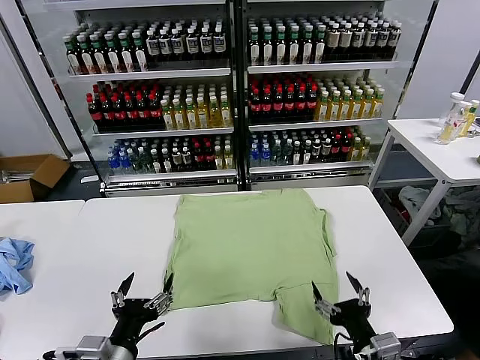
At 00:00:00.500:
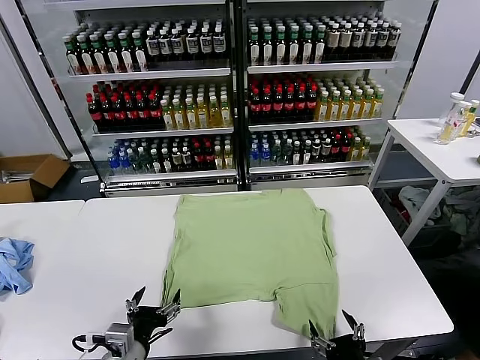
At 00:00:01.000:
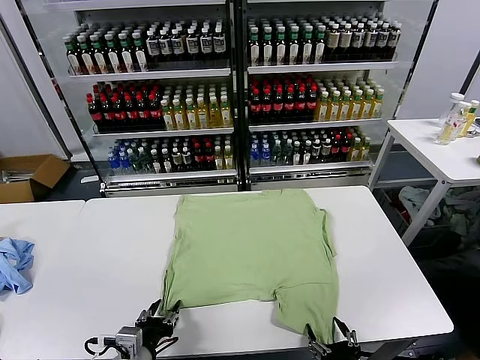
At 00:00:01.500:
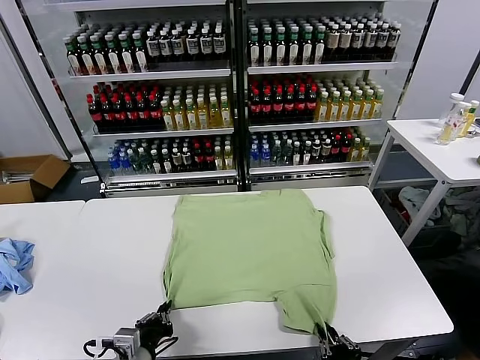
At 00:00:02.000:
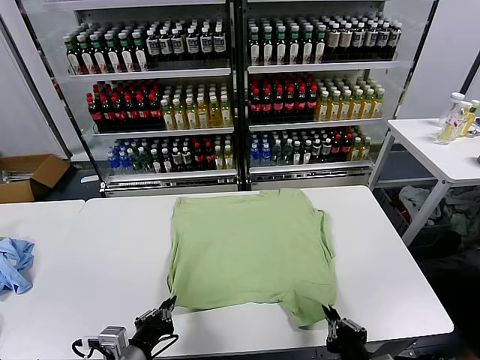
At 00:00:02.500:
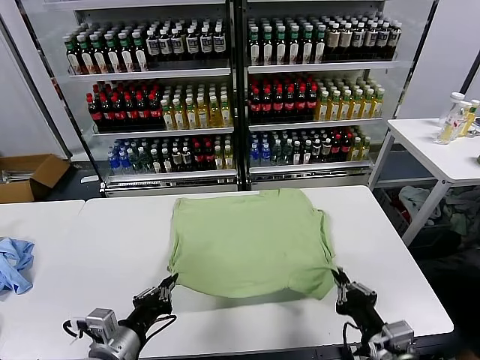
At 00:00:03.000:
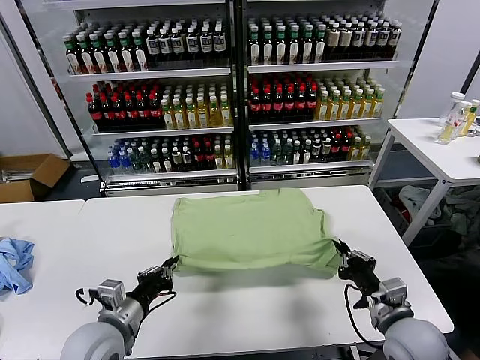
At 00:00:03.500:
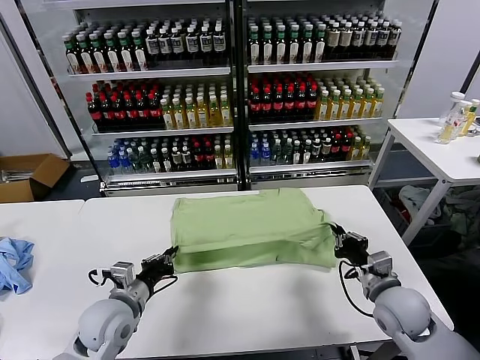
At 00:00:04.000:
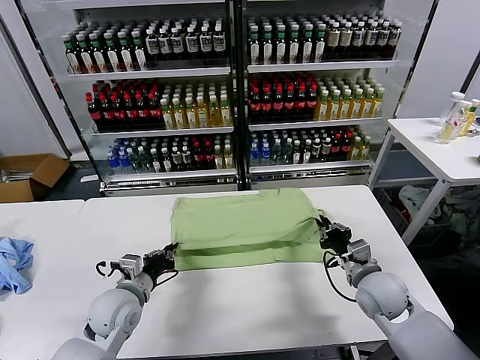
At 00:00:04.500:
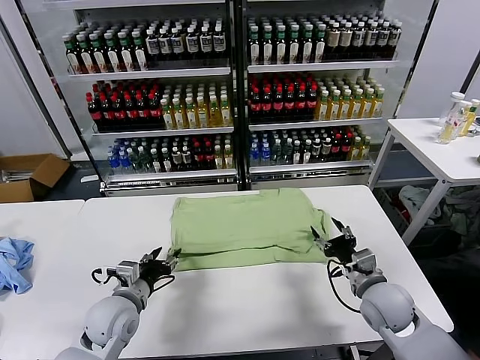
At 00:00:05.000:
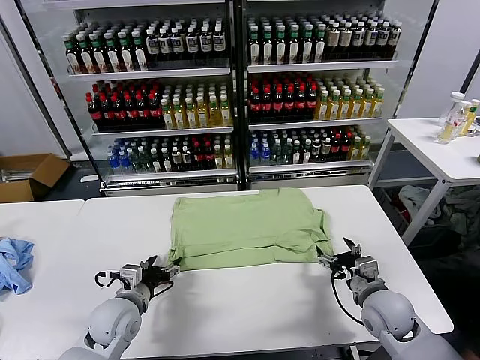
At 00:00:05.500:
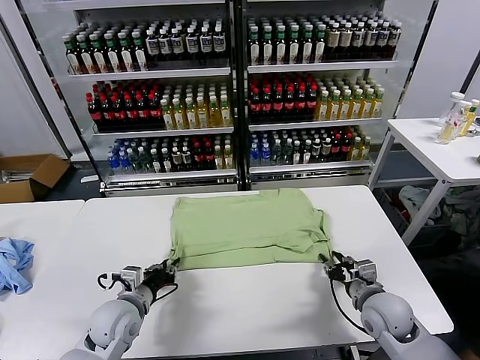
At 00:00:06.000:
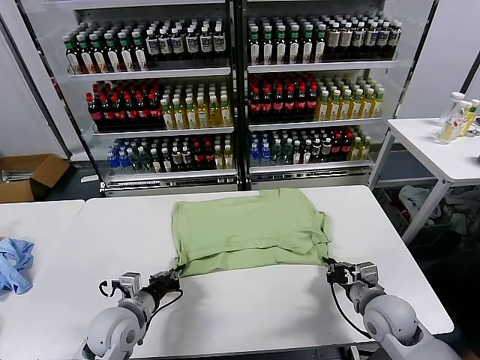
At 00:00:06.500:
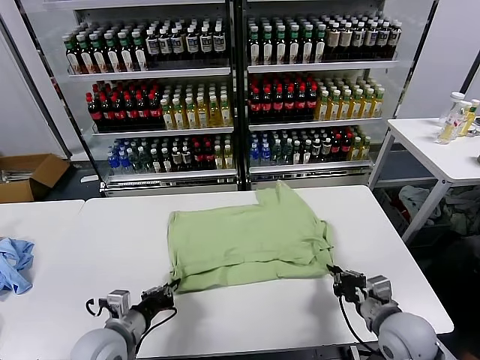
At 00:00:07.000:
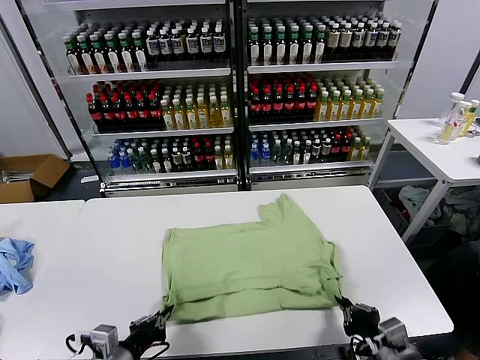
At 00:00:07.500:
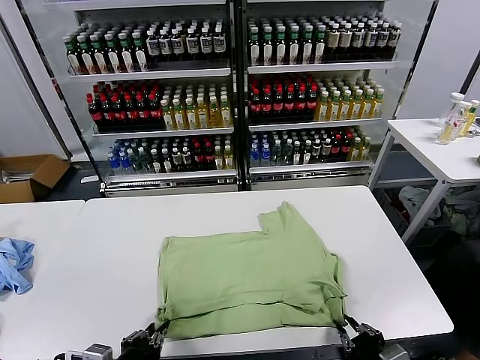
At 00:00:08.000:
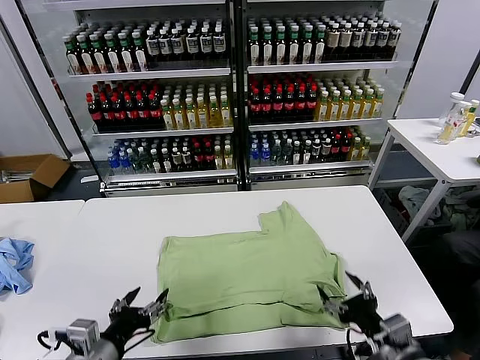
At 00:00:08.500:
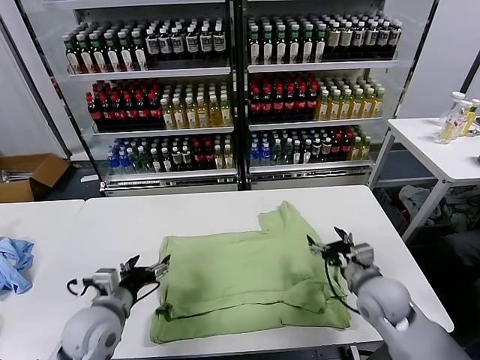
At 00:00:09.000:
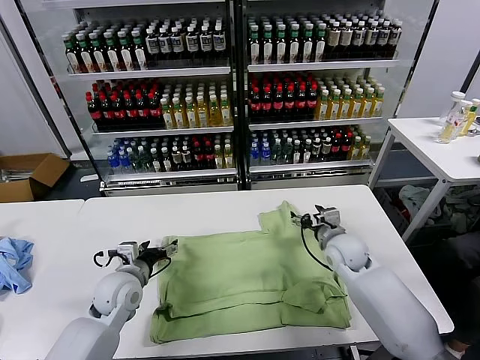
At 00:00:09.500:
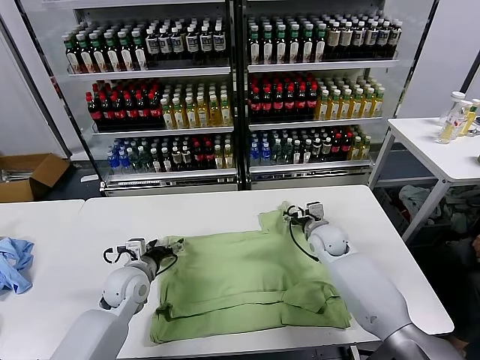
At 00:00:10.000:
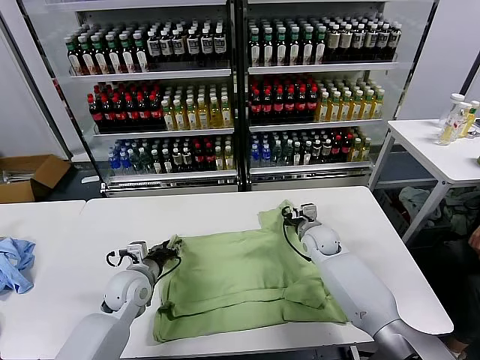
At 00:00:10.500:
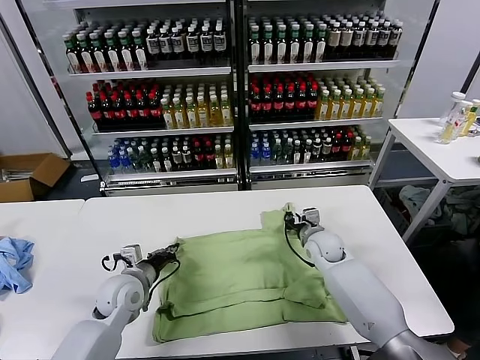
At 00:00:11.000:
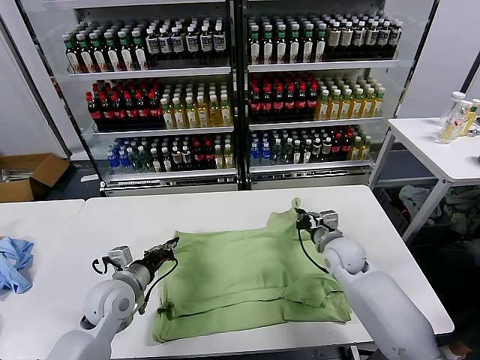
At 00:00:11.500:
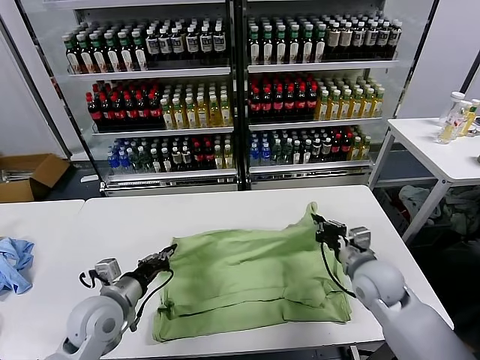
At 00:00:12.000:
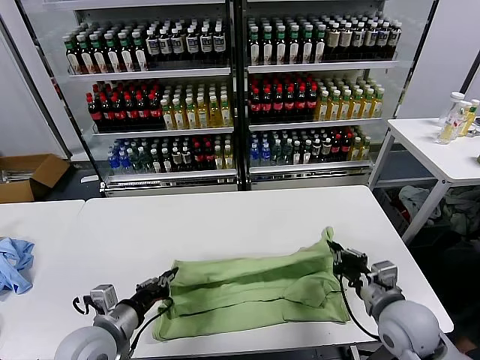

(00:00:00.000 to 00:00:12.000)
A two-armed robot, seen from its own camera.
Task of the whole recording: fold and organize the clothes.
Step, 00:00:00.000 - 00:00:01.500: use both grippers simultaneously to clamp the lower edge of the clothing fabric.
Step, 00:00:02.000 - 00:00:04.500: use both grippers to drag the lower edge of the fabric forward and fold it over the upper edge.
Step, 00:00:05.000 - 00:00:07.500: Drag the clothes downward with both gripper.
Step, 00:00:08.000 - 00:00:10.000: use both grippers simultaneously to clamp the upper edge of the clothing fabric.
00:00:02.000 - 00:00:04.000: Both grippers move forward, some 20 cm.
00:00:04.000 - 00:00:06.000: The right gripper ends up some 5 cm from where it was, and opens, then closes once more, while the left gripper opens and closes again.
00:00:06.000 - 00:00:08.000: Both grippers move backward and upward, about 15 cm. The right gripper opens its fingers. The left gripper opens its fingers.
00:00:08.000 - 00:00:10.000: The right gripper travels forward by some 35 cm, and closes; the left gripper heads forward and downward, covering some 25 cm, and closes its fingers.
00:00:10.000 - 00:00:12.000: The right gripper travels backward by about 25 cm, and closes; the left gripper shifts some 15 cm backward, and closes.

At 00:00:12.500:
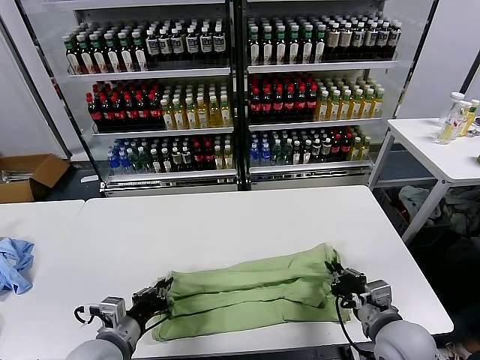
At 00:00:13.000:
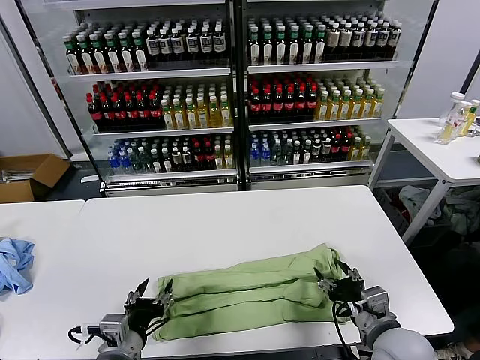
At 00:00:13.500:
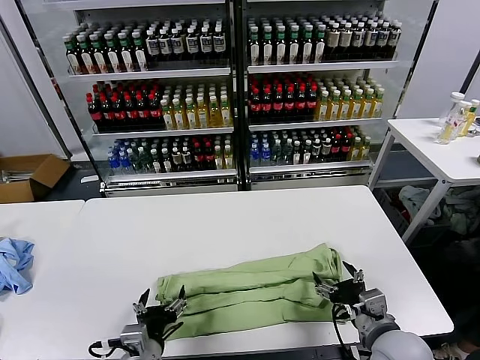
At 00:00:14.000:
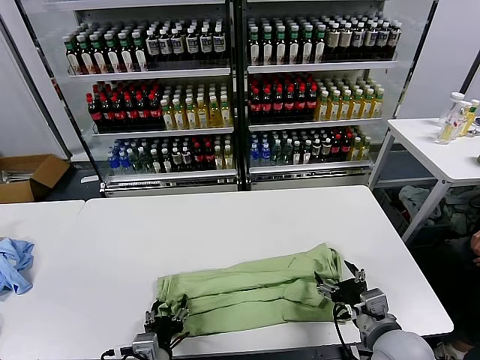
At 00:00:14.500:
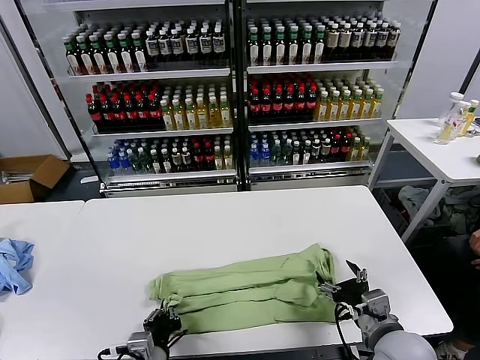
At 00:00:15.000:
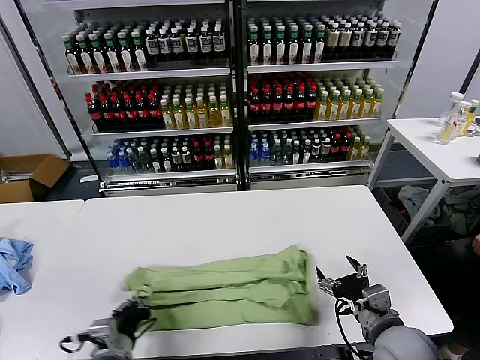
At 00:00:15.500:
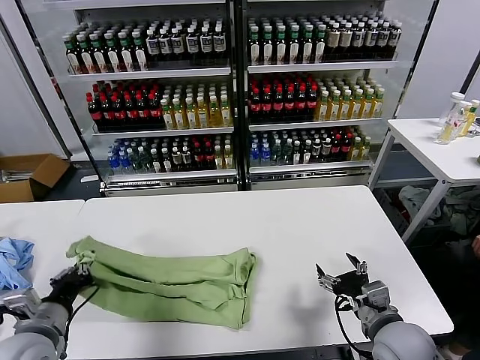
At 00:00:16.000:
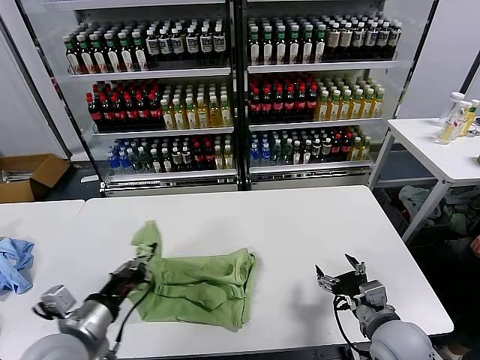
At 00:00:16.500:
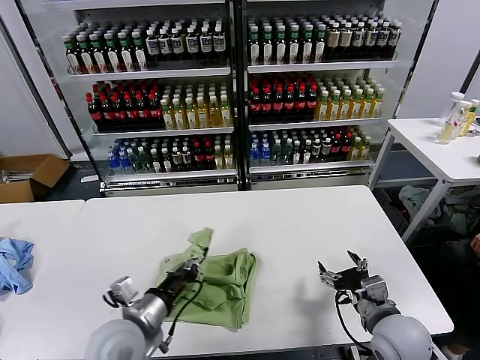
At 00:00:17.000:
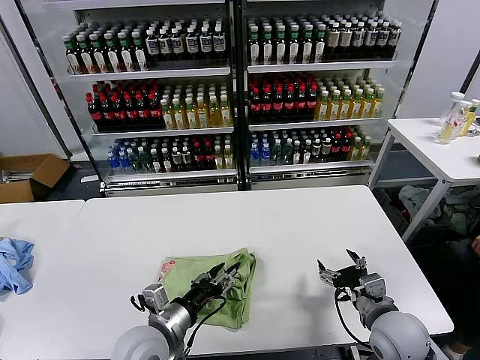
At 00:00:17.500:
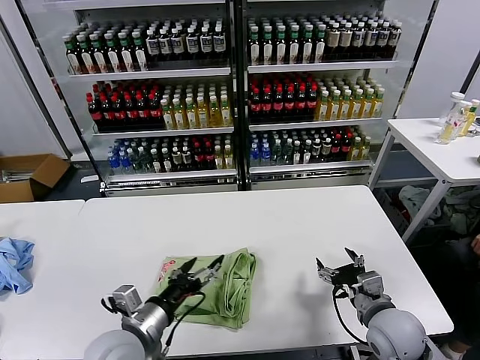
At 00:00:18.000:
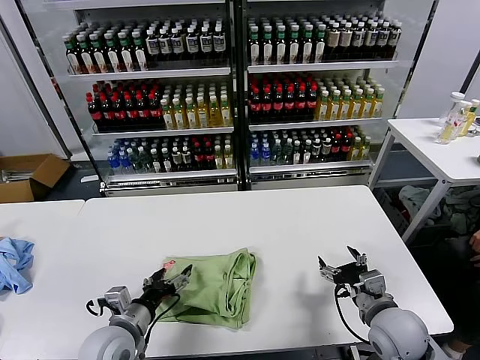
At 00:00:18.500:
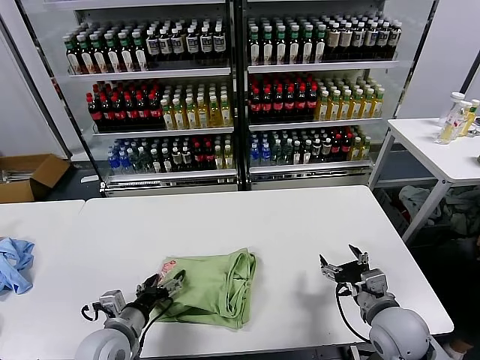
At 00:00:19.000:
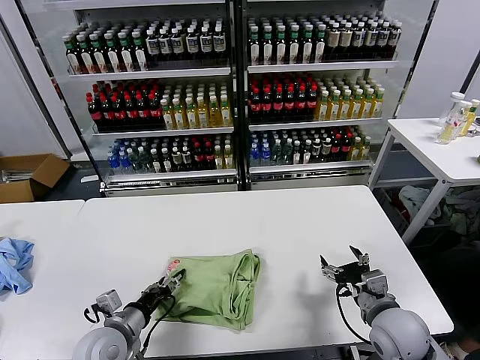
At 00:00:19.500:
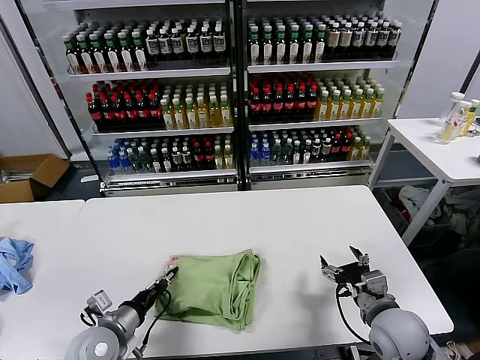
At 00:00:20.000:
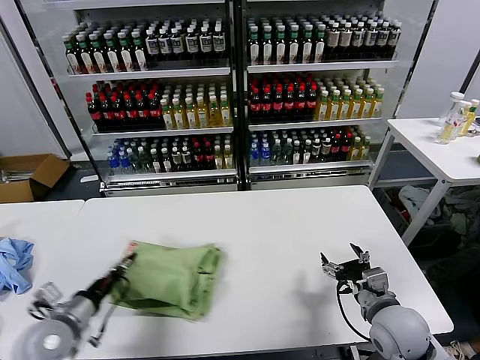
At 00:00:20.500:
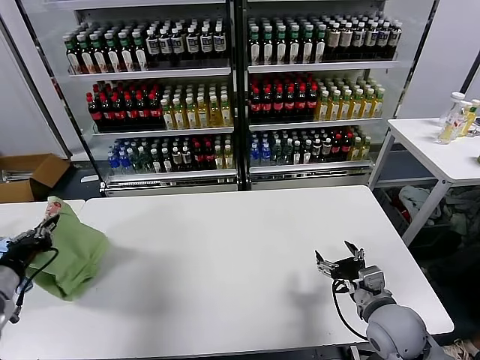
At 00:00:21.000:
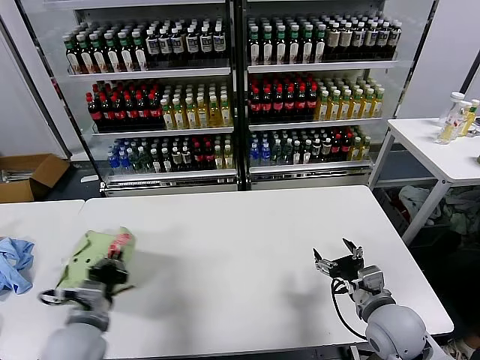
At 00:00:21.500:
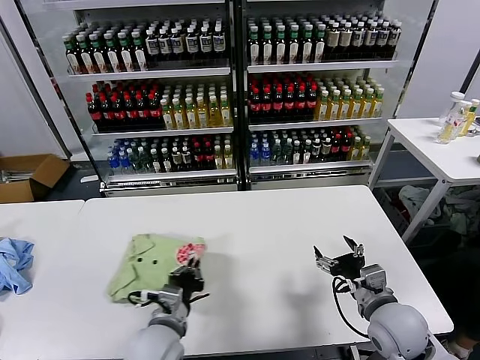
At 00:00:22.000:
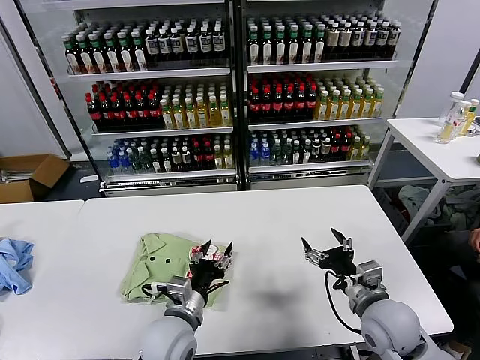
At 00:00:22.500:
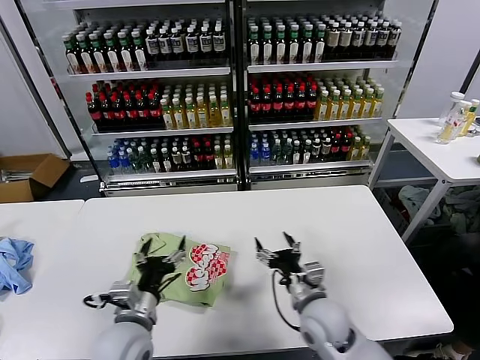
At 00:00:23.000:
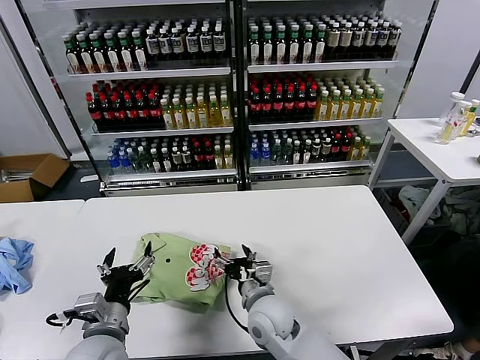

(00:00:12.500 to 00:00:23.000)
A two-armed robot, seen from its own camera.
Task of the whole recording: fold and organize the clothes.
Step, 00:00:13.500 - 00:00:14.500: use the left gripper to clamp the left edge of the fabric.
Step, 00:00:15.000 - 00:00:17.000: use the left gripper to drag the left edge of the fabric to the left and folds it over the right edge.
Step, 00:00:17.500 - 00:00:21.500: Flip the folded clothes over with left gripper.
00:00:12.500 - 00:00:14.500: The left gripper goes approximately 10 cm to the right and downward, and opens and closes again; the right gripper opens up.
00:00:14.500 - 00:00:16.500: The left gripper travels upward and forward by roughly 10 cm, and moves roughly 15 cm to the left and comes back.
00:00:16.500 - 00:00:19.000: The left gripper heads downward and to the left, covering roughly 10 cm, and opens.
00:00:19.000 - 00:00:21.000: The left gripper shifts some 5 cm upward, reaches about 15 cm to the left, then returns, and closes its fingers.
00:00:21.000 - 00:00:23.000: The right gripper shifts about 20 cm to the left; the left gripper moves approximately 20 cm to the right and comes back, and opens its fingers.

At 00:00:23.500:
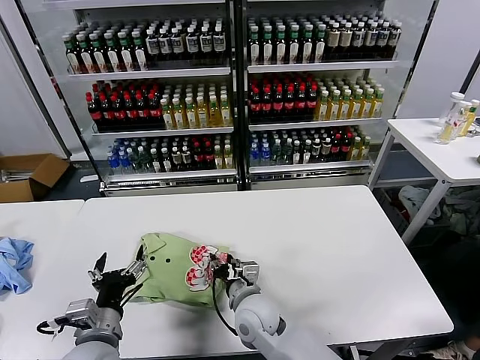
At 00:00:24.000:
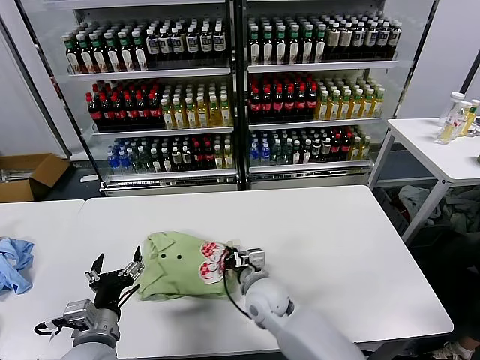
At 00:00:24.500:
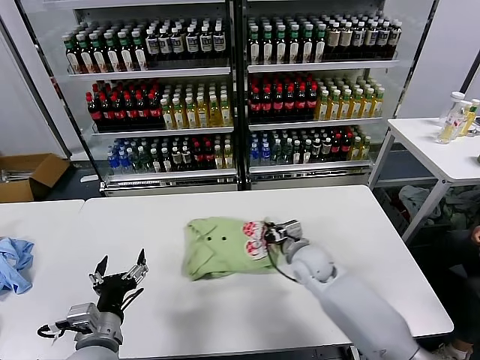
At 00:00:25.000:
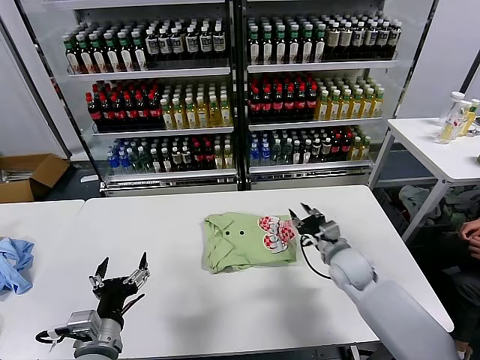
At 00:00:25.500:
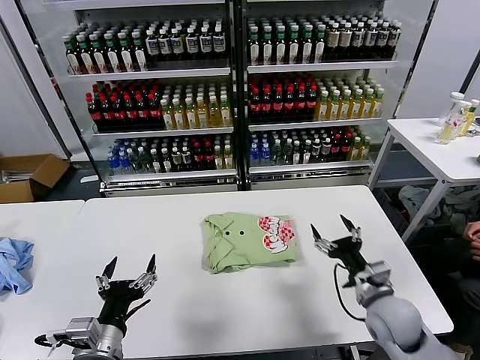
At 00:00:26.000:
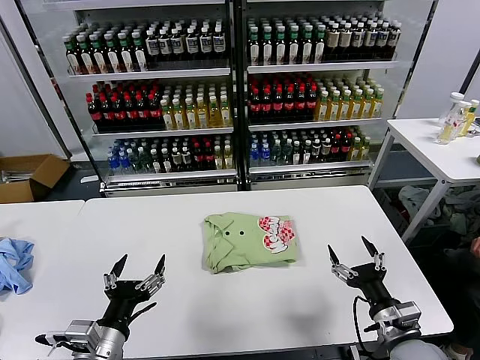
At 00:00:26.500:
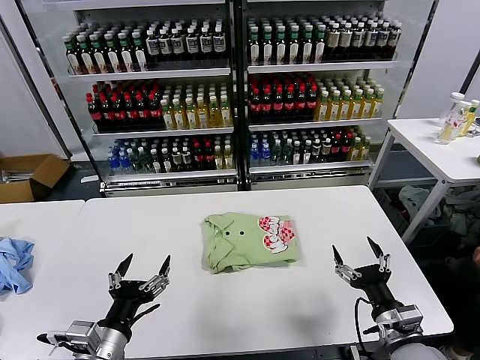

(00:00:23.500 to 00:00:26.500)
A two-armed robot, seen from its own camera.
Task of the whole recording: fold and organize the clothes.
00:00:23.500 - 00:00:25.000: The right gripper shifts about 25 cm to the right and forward, and closes, then reopens.
00:00:25.000 - 00:00:26.500: The right gripper heads backward, covering some 20 cm, and opens its fingers.
